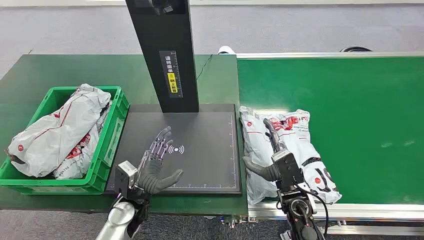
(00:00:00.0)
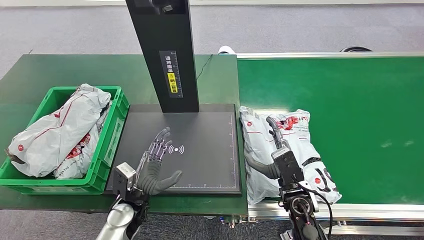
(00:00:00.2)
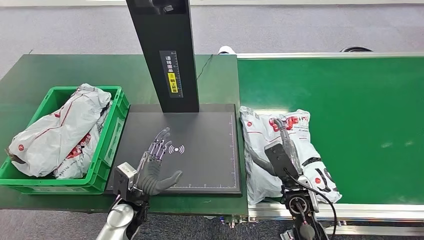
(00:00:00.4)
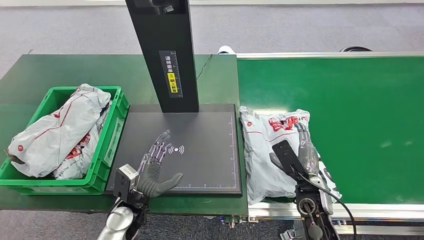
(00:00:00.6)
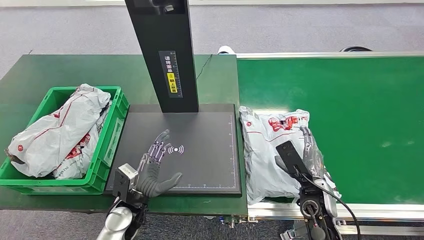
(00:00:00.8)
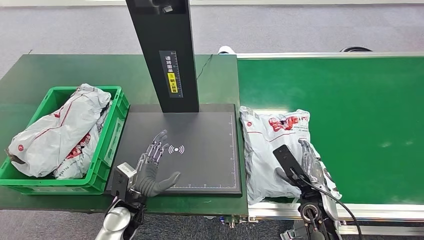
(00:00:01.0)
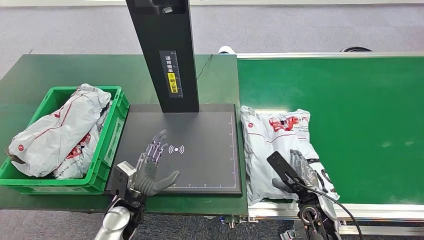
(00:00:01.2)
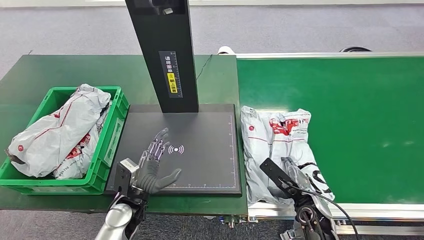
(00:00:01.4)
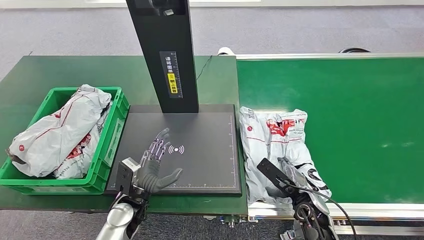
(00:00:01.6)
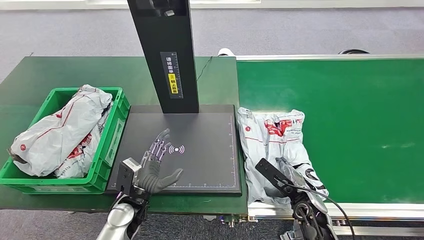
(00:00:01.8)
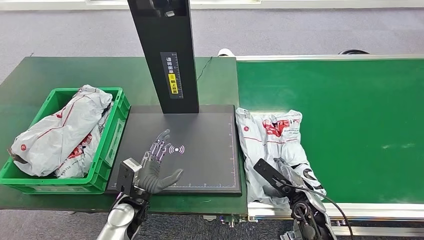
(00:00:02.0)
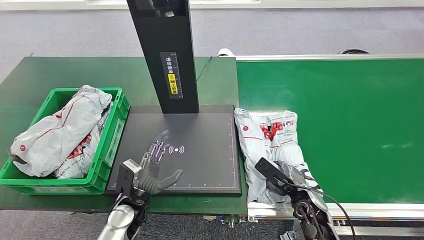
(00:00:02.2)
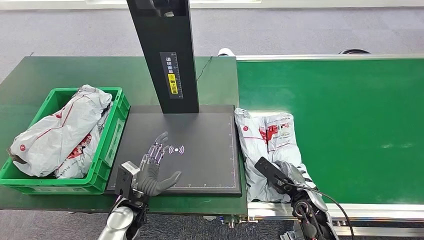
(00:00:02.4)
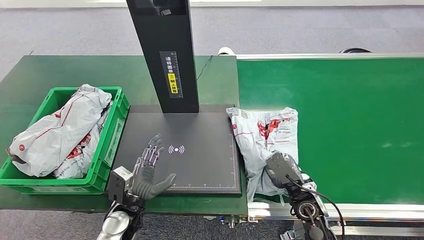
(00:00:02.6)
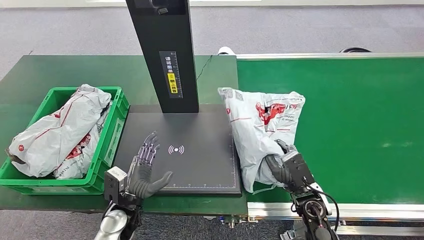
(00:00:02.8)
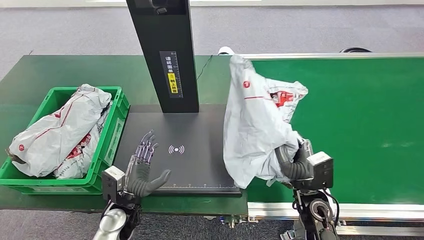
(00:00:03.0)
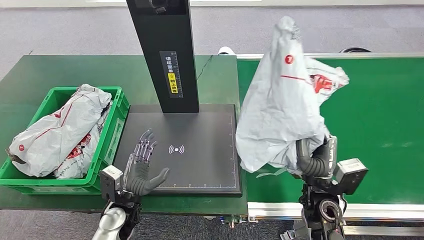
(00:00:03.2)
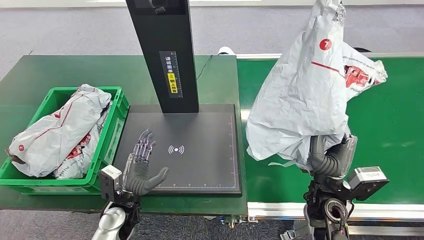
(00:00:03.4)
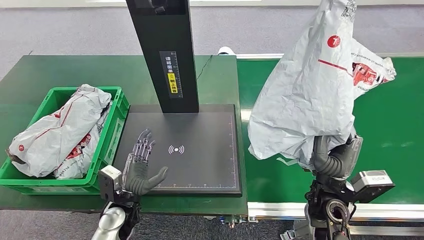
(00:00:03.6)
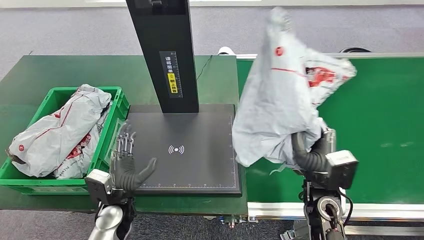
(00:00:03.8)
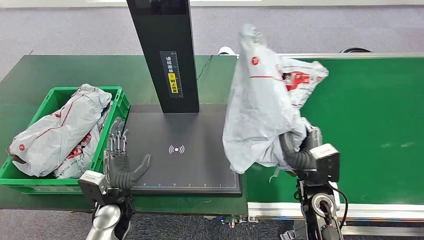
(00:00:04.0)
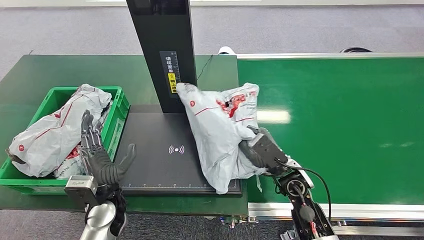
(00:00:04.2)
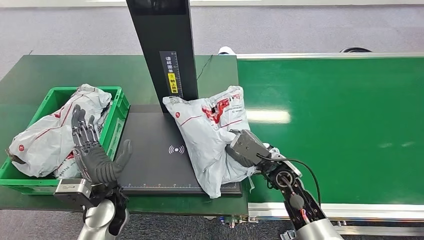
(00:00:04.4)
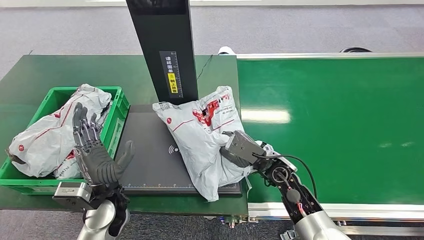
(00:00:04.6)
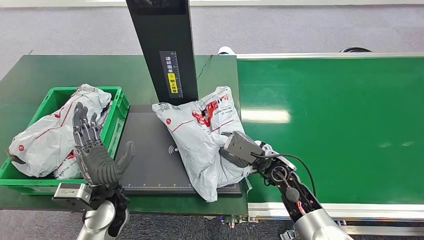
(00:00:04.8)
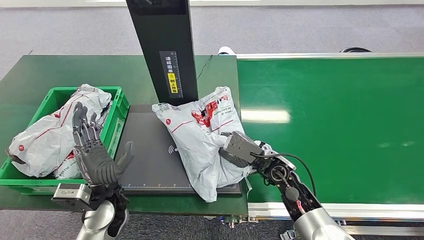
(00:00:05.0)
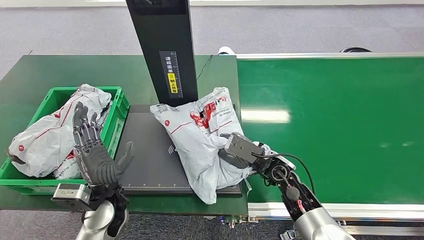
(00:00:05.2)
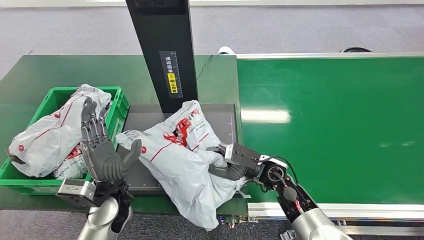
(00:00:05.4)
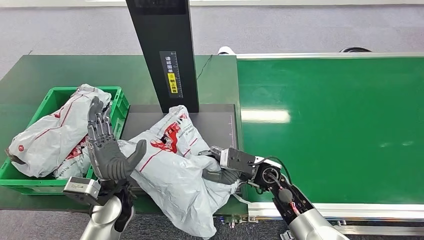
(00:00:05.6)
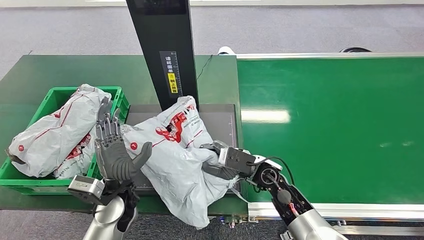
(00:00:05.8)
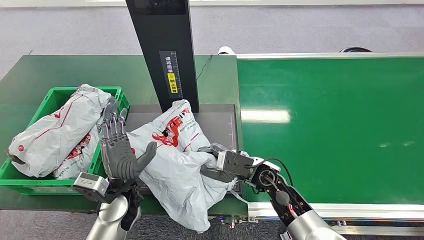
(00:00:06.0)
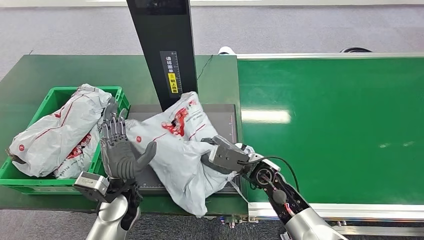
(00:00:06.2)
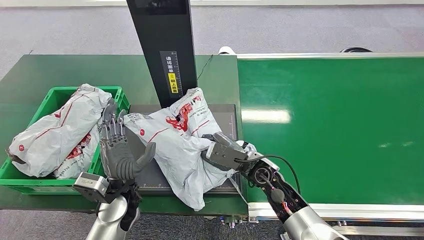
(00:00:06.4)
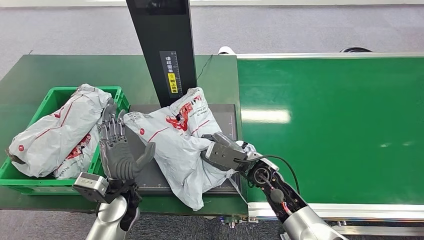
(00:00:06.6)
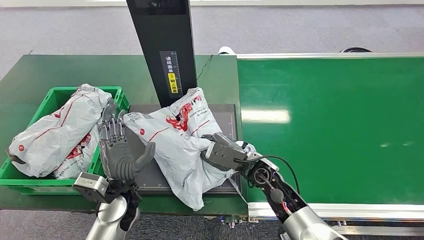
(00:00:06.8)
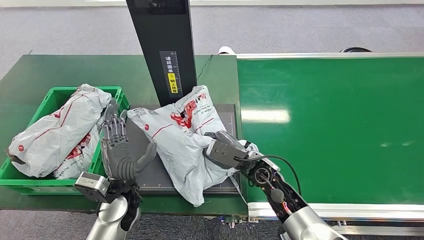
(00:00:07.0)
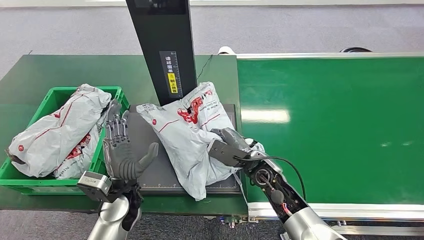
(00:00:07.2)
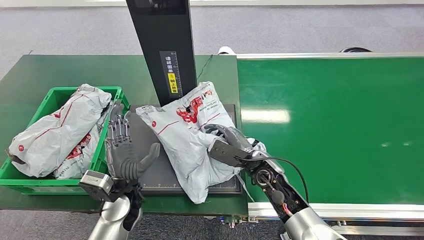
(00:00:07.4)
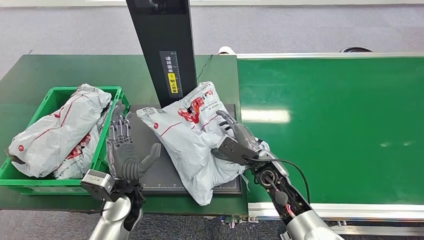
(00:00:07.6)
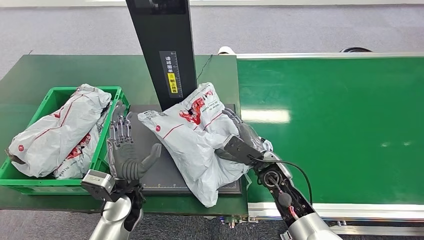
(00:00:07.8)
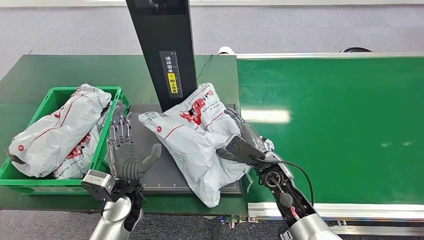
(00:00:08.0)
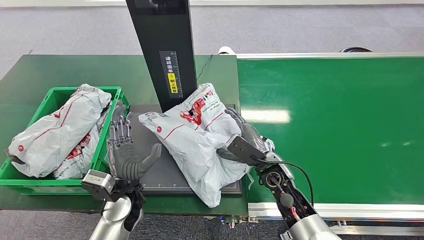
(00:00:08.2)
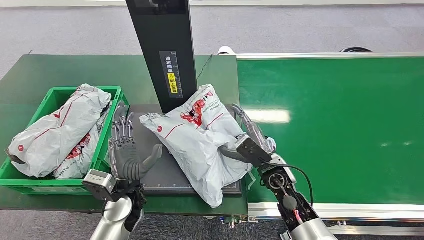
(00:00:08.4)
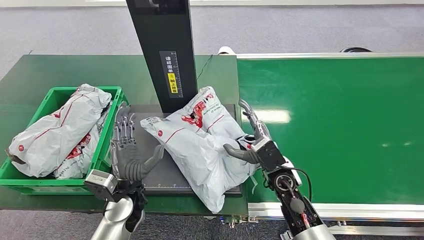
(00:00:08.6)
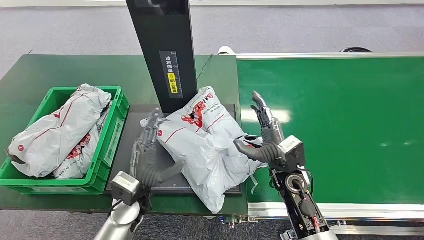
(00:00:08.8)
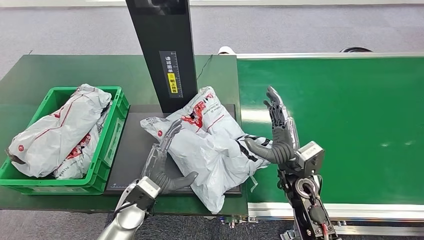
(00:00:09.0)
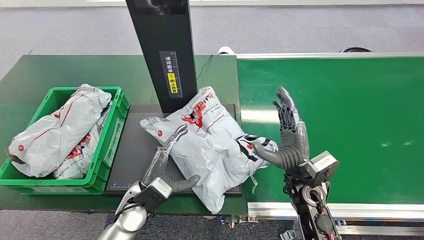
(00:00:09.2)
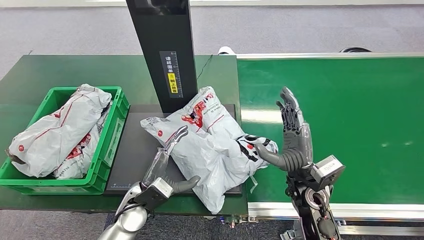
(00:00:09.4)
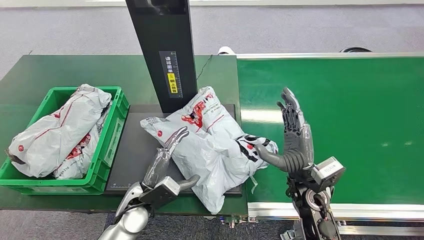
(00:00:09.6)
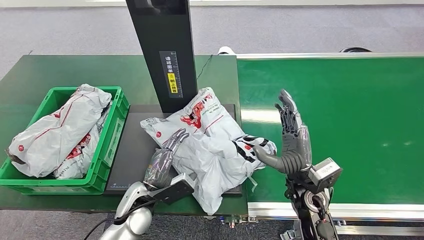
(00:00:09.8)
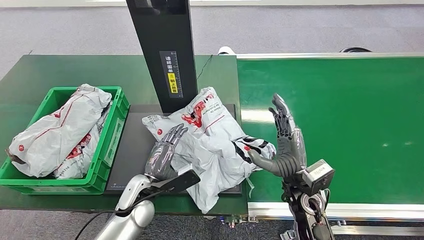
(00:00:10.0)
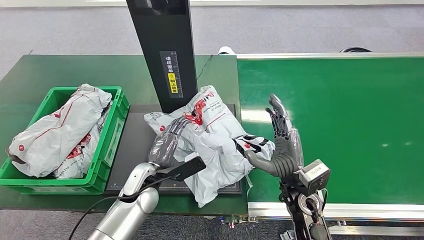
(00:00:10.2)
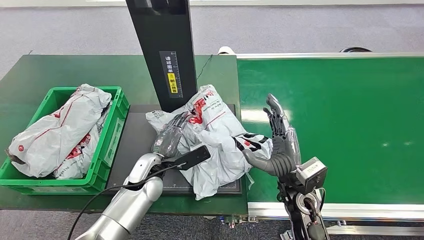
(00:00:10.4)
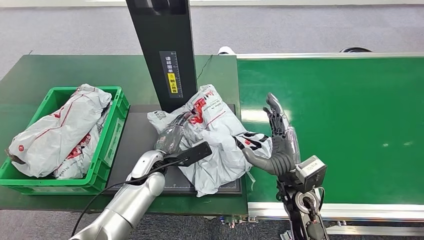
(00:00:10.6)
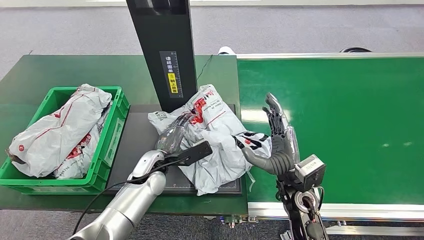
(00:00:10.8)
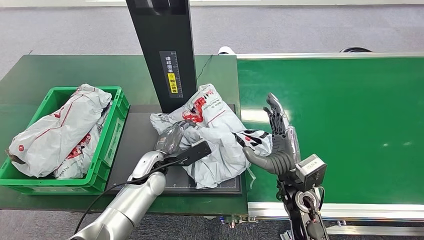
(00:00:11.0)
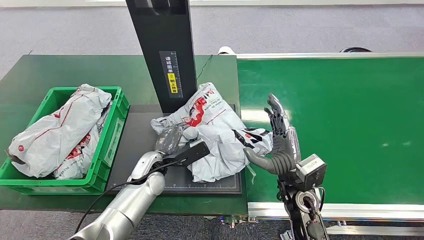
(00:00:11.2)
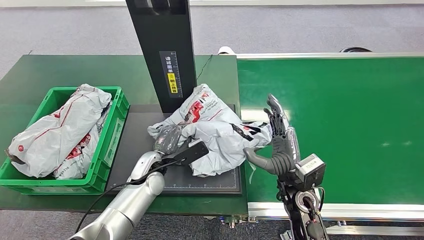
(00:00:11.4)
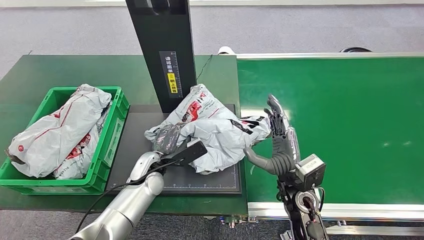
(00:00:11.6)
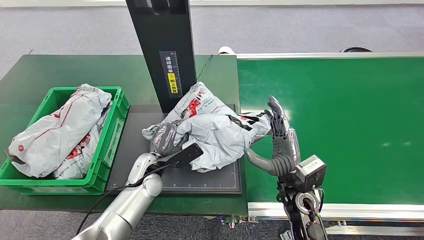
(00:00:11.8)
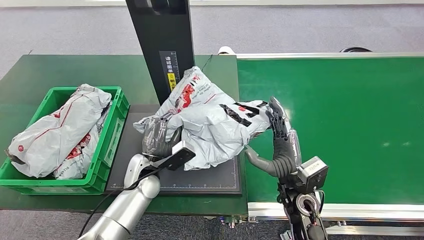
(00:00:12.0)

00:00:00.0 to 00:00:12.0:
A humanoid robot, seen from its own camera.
Step, 00:00:00.0 to 00:00:03.0: Pick up the package from the conveyor belt.
Step, 00:00:03.4 to 00:00:08.4: Place the package onto the inbound machine.
00:00:01.6 to 00:00:03.0: The right hand travels upward by roughly 5 cm.
00:00:07.6 to 00:00:09.0: The right hand ends up some 5 cm from where it was.
00:00:09.0 to 00:00:10.4: The left hand travels forward by approximately 5 cm.

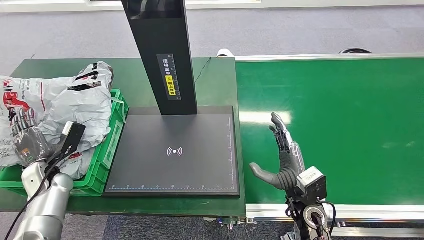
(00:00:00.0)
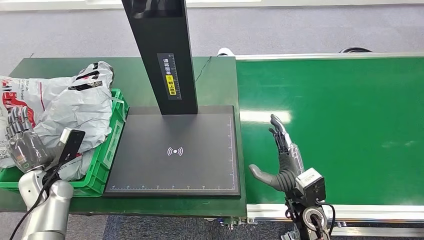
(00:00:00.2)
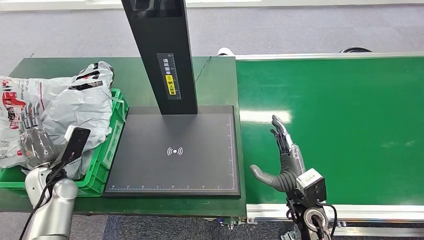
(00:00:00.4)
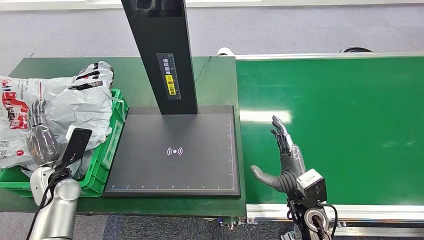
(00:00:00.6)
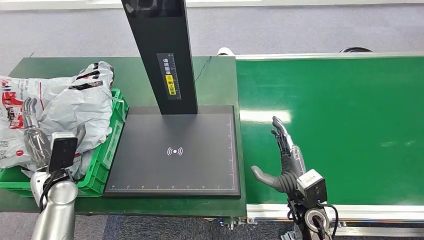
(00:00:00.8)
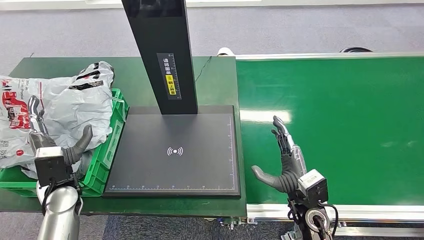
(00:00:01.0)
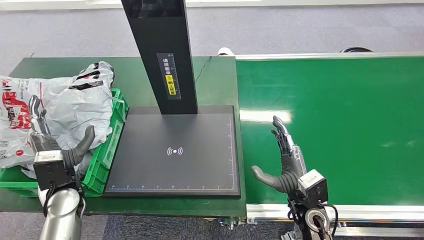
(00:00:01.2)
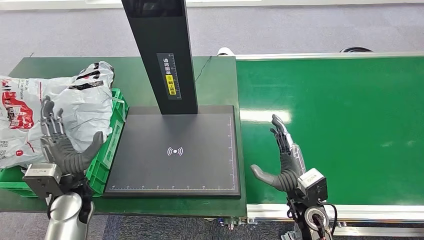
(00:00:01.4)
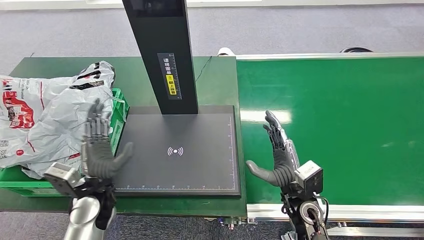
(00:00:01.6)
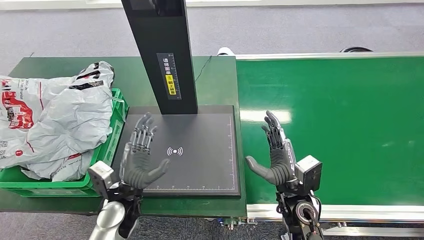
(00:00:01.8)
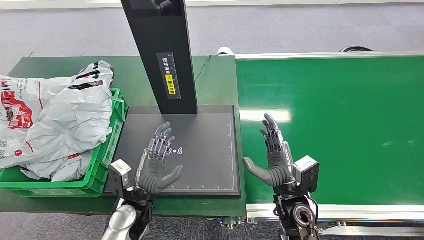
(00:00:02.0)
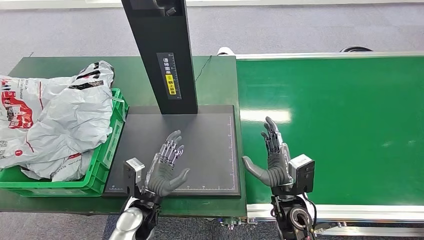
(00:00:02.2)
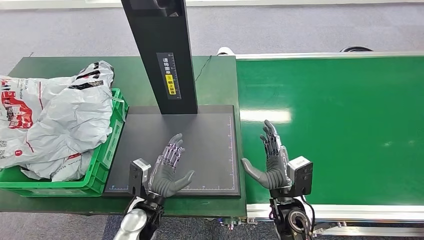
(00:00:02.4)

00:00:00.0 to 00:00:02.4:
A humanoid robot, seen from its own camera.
Step, 00:00:00.0 to 00:00:02.4: Place the package into the parcel locker.
00:00:00.0 to 00:00:01.2: The left hand is displaced to the right and upward by about 10 cm.
00:00:01.2 to 00:00:02.4: The left hand moves to the right and downward, approximately 20 cm.
